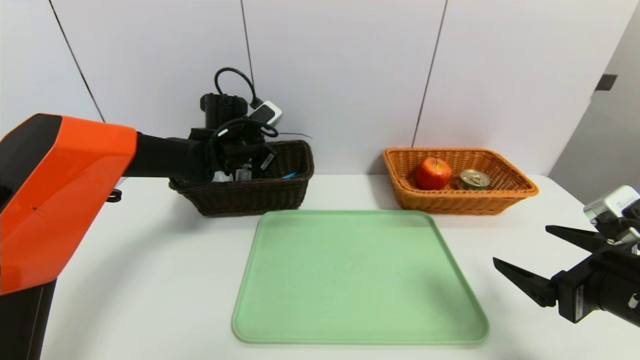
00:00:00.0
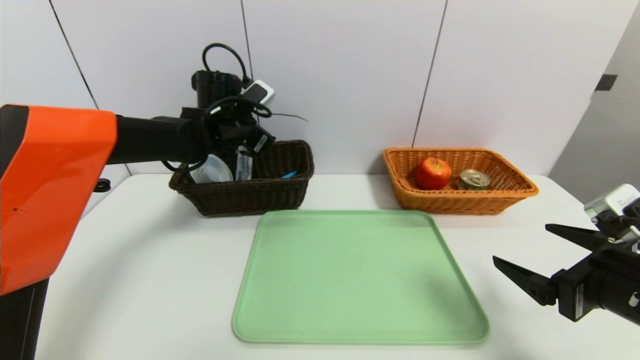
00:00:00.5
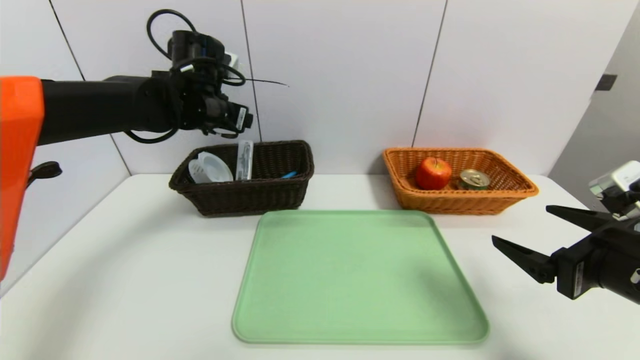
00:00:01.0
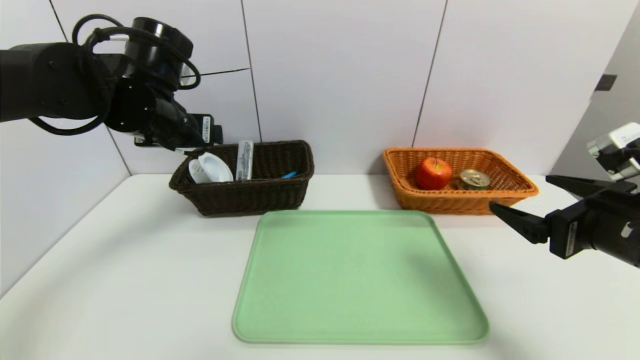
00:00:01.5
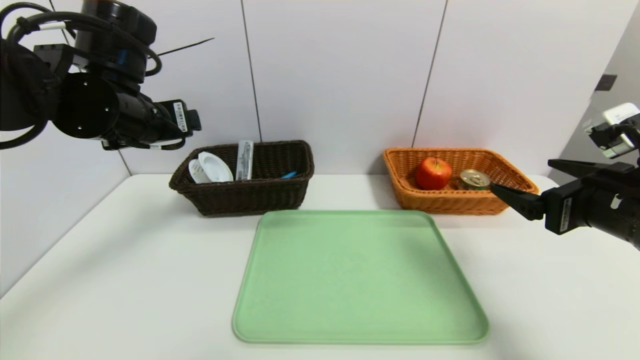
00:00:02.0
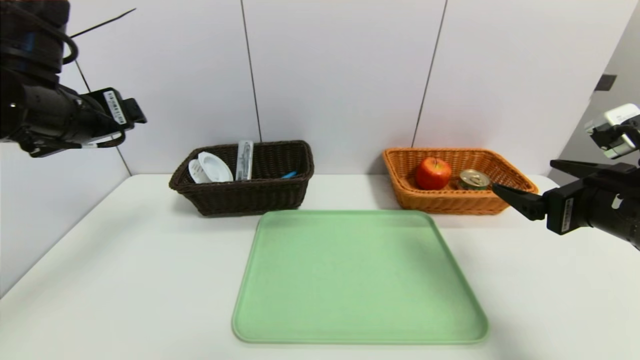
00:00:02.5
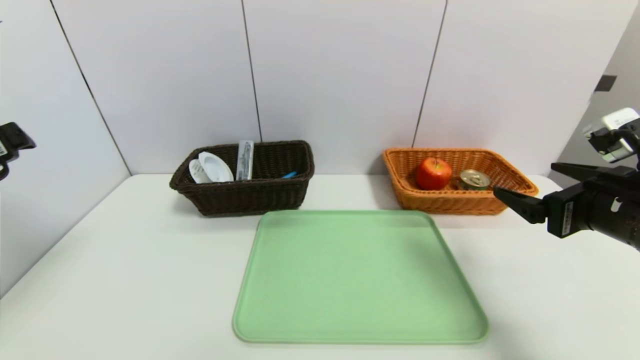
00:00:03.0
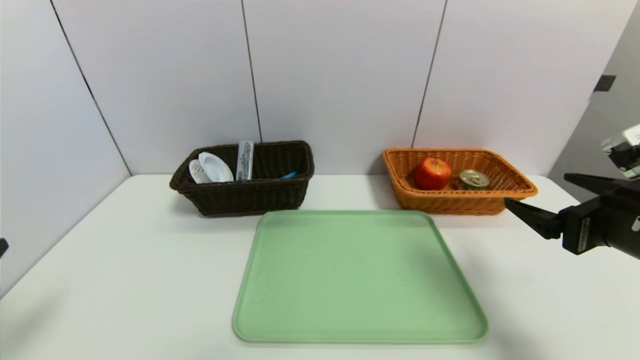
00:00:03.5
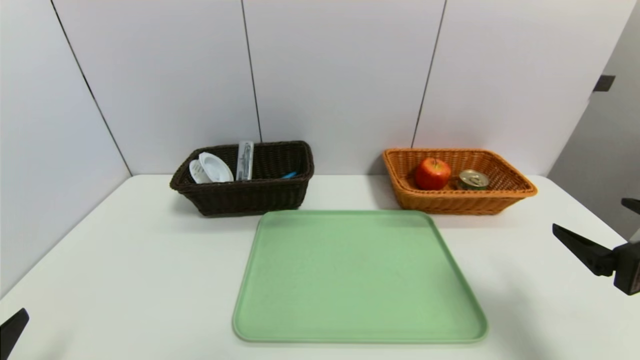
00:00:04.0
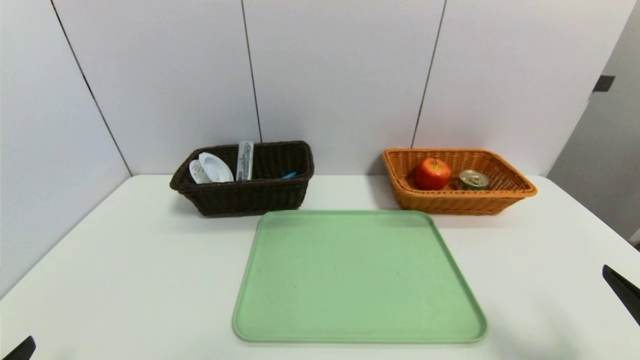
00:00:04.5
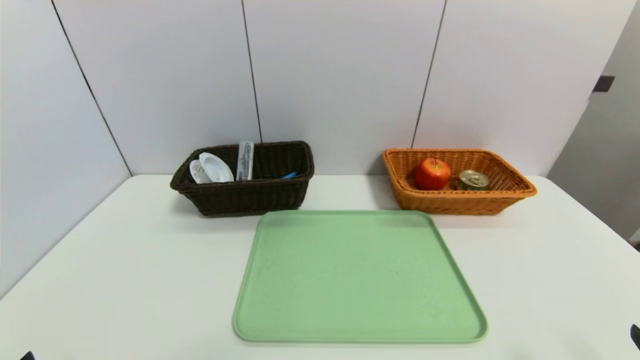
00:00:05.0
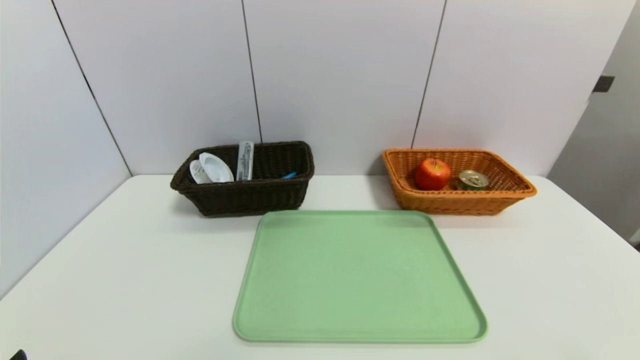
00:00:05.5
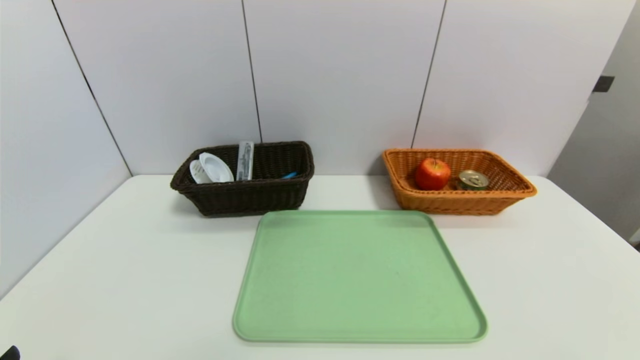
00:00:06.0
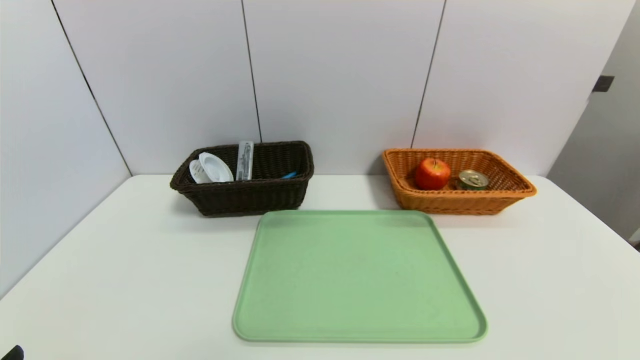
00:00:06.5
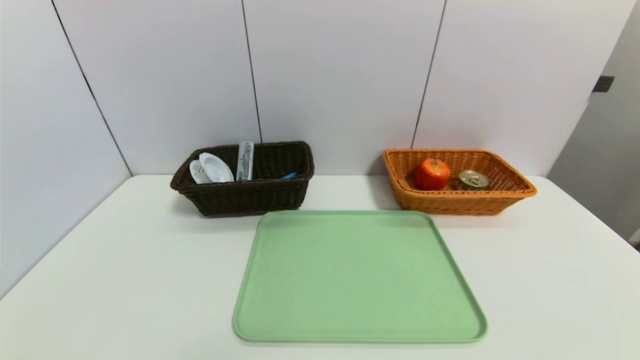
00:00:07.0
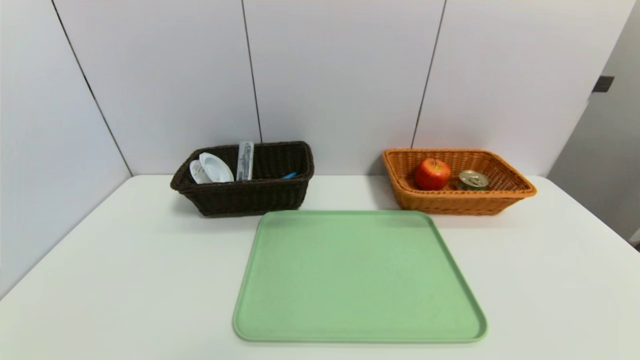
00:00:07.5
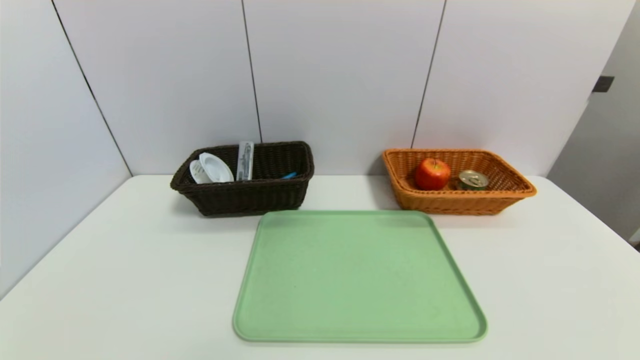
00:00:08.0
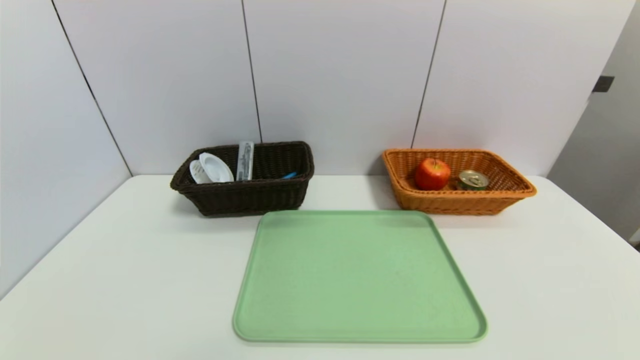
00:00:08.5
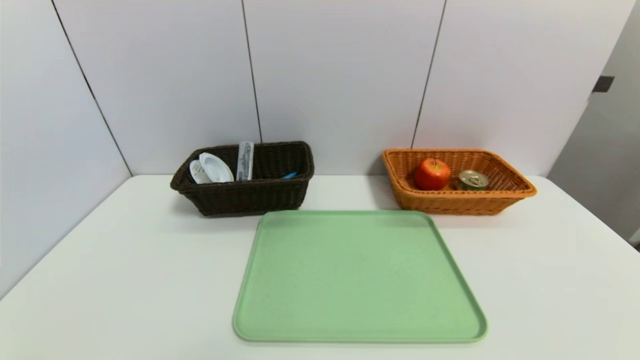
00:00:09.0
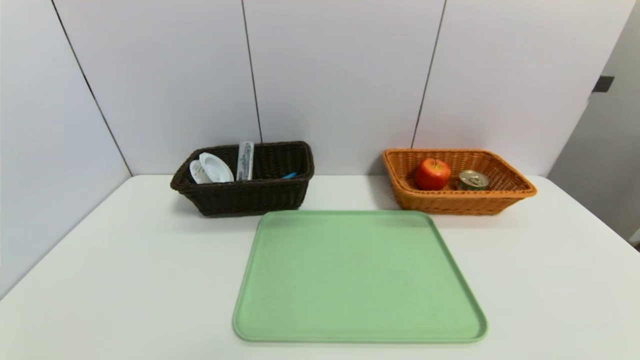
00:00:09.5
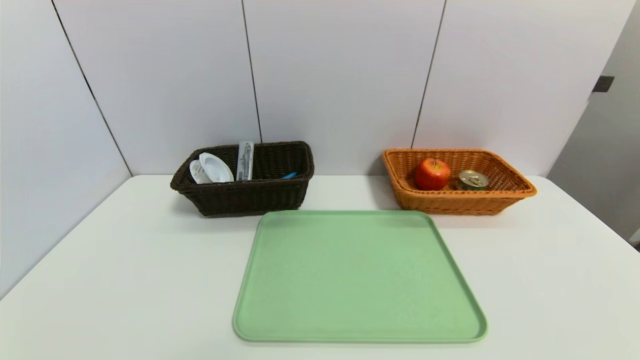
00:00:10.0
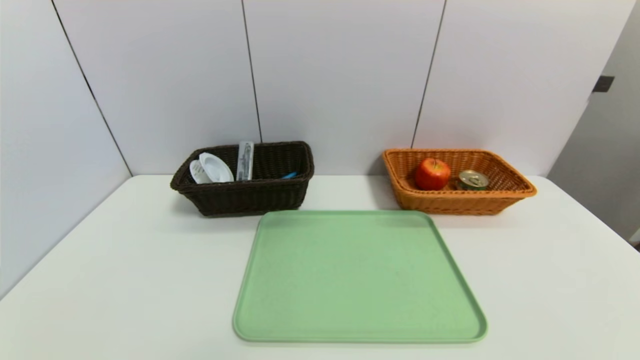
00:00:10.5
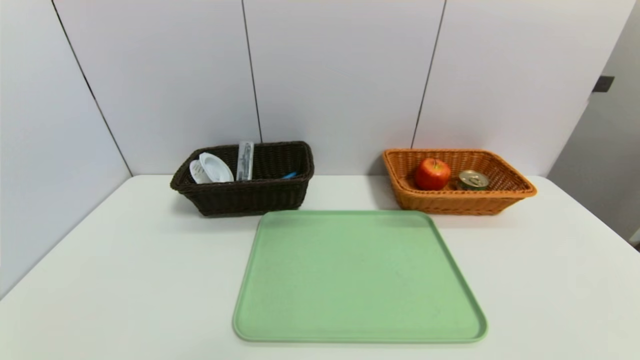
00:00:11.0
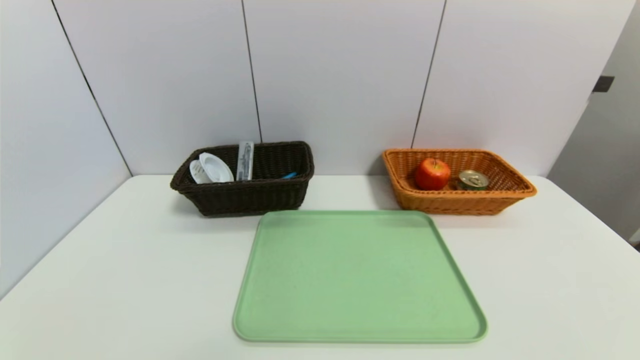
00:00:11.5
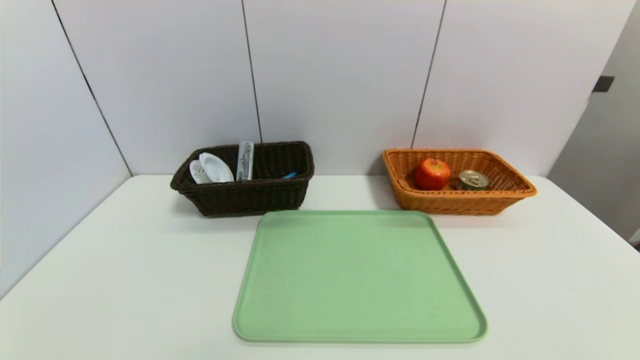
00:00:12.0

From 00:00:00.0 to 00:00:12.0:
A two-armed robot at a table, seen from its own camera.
Task of the whole recording: place the food in the right basket with the right gripper, and place the non food items in the left basket with the left gripper.
From 00:00:00.0 to 00:00:02.0: The left gripper heads backward and upward, covering some 20 cm, and opens up, while the right gripper travels upward and forward by approximately 5 cm.
From 00:00:02.0 to 00:00:04.0: The right gripper moves backward, roughly 5 cm; the left gripper shifts approximately 30 cm backward and downward.
From 00:00:04.0 to 00:00:06.0: The right gripper heads backward, covering about 15 cm.

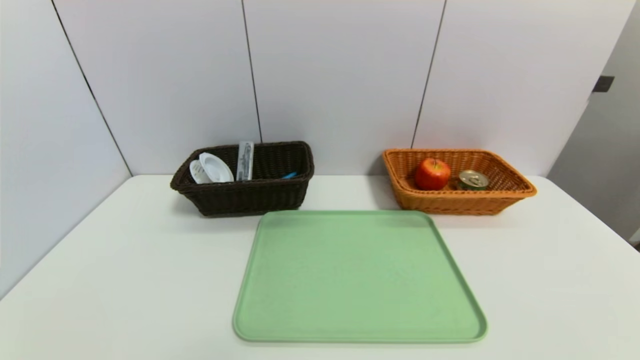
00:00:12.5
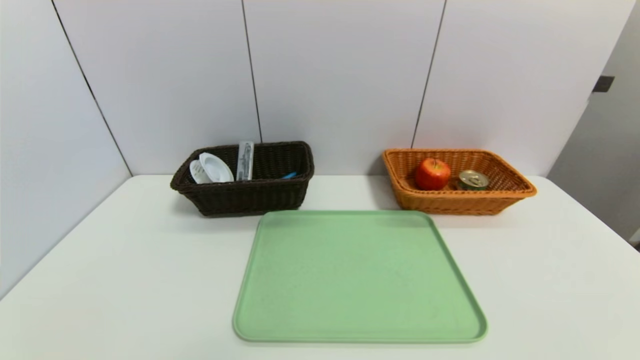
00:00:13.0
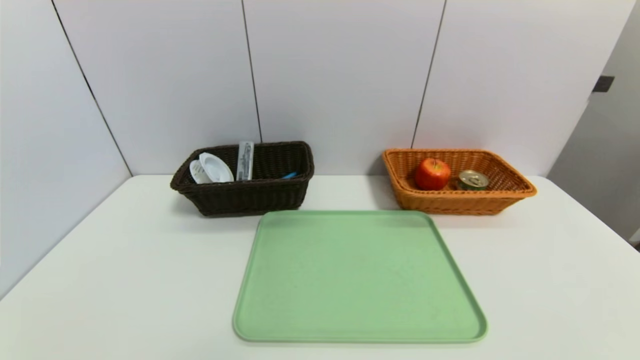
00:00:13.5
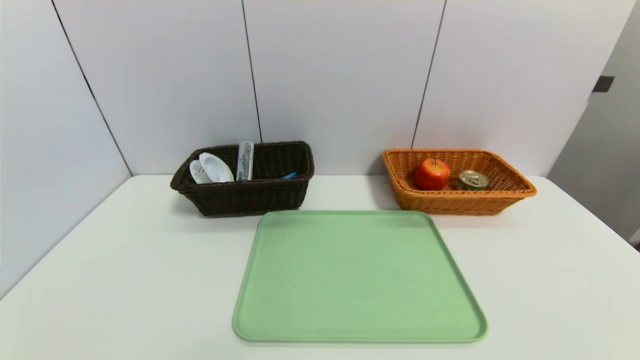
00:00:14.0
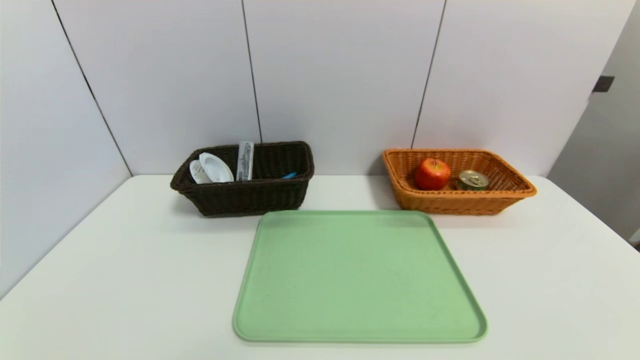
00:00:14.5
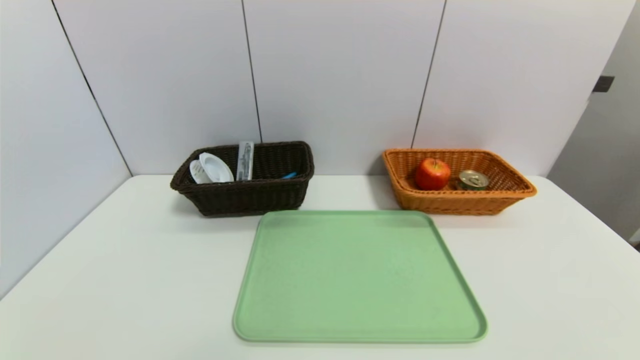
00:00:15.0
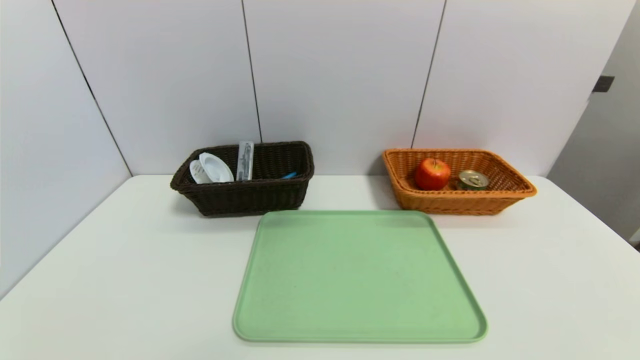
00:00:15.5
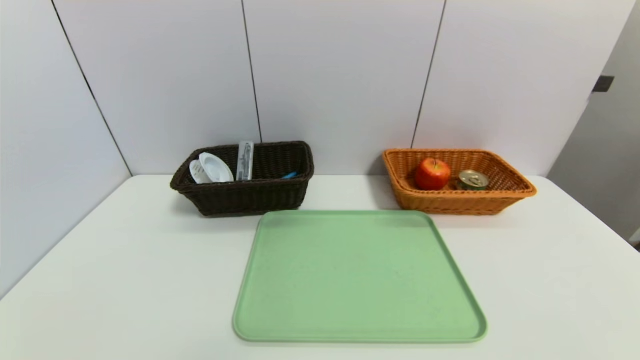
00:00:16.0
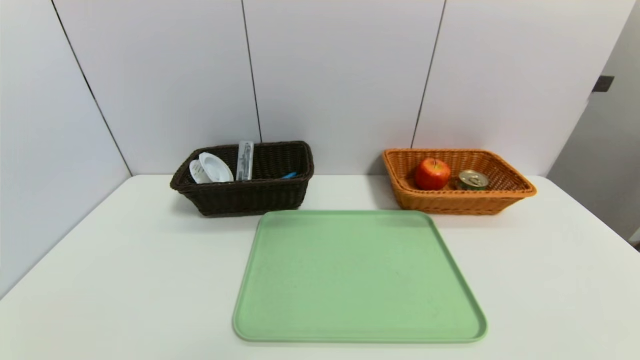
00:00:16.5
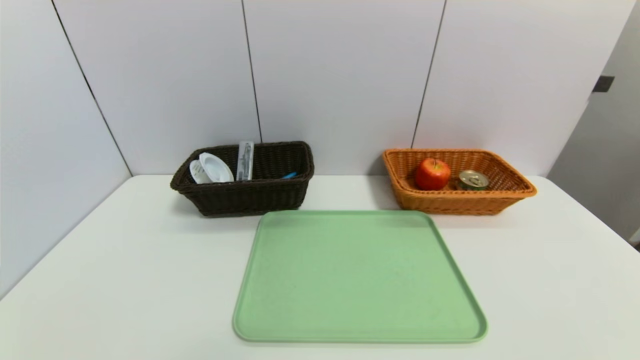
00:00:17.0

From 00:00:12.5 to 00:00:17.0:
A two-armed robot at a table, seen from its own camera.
Task of the whole recording: place the food in the right basket with the right gripper, and place the non food items in the left basket with the left gripper.
From 00:00:12.5 to 00:00:17.0: Both grippers stay put.
